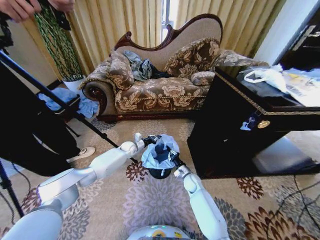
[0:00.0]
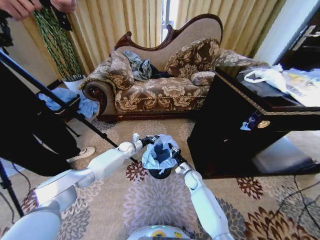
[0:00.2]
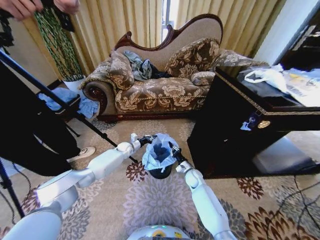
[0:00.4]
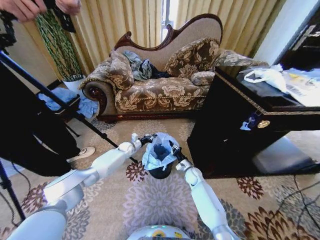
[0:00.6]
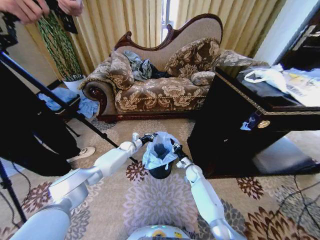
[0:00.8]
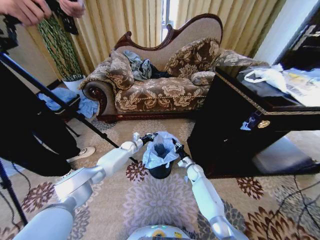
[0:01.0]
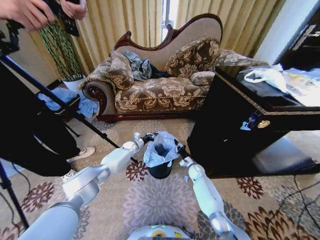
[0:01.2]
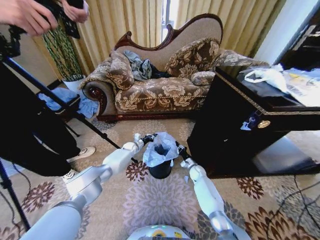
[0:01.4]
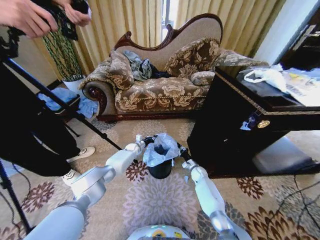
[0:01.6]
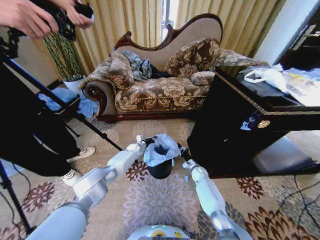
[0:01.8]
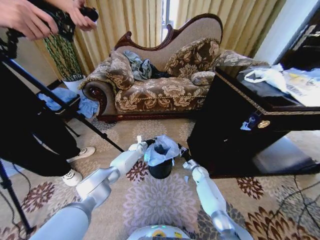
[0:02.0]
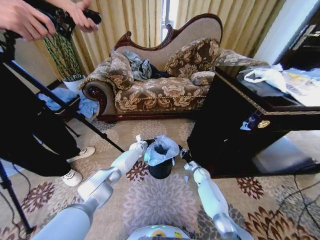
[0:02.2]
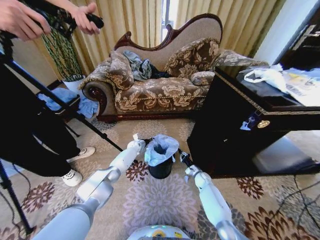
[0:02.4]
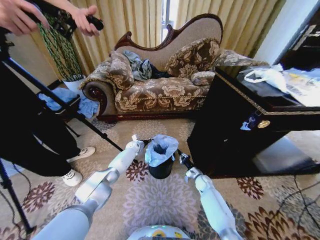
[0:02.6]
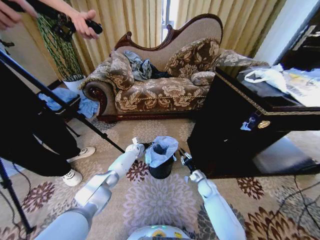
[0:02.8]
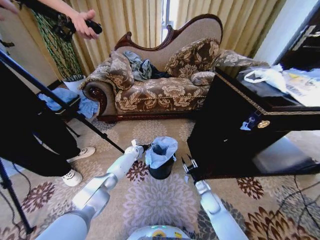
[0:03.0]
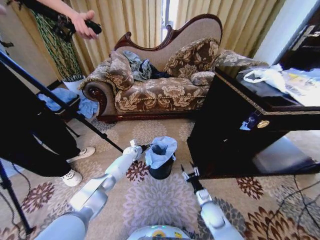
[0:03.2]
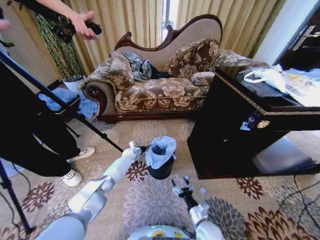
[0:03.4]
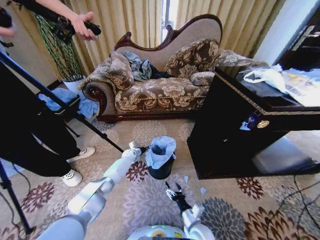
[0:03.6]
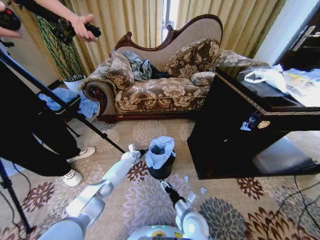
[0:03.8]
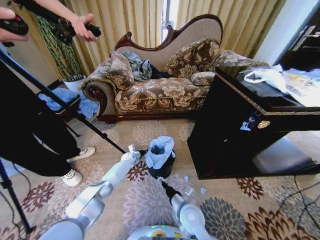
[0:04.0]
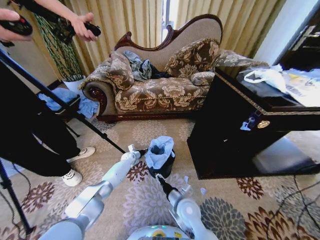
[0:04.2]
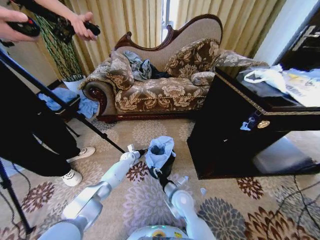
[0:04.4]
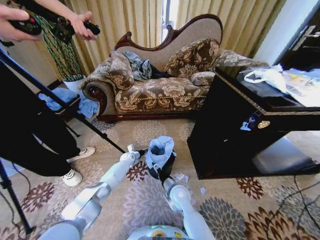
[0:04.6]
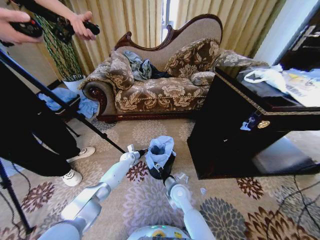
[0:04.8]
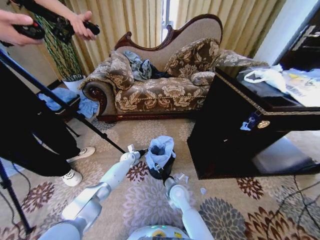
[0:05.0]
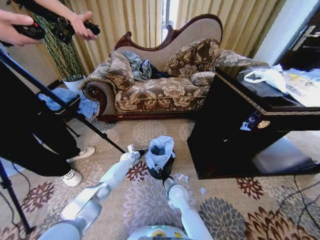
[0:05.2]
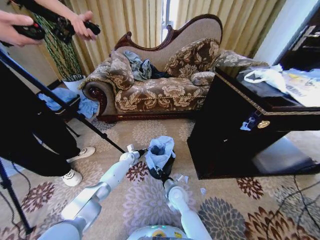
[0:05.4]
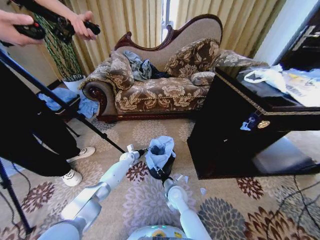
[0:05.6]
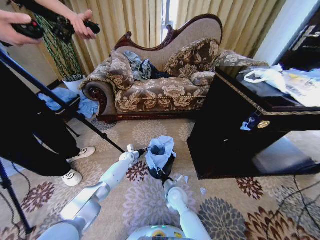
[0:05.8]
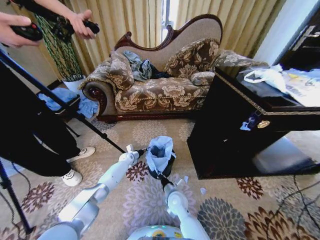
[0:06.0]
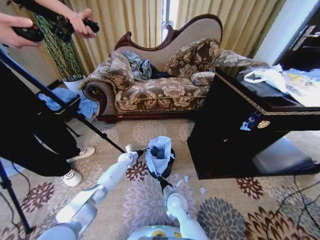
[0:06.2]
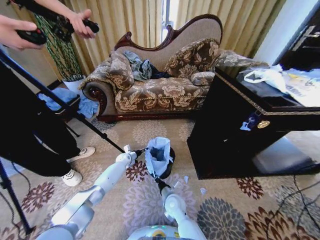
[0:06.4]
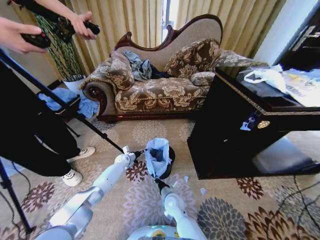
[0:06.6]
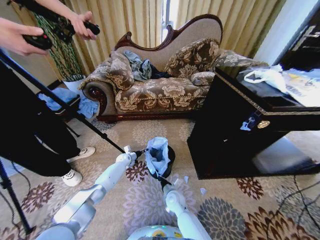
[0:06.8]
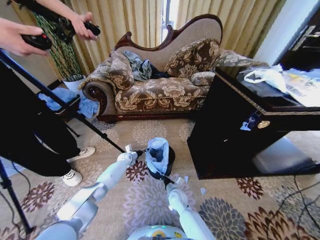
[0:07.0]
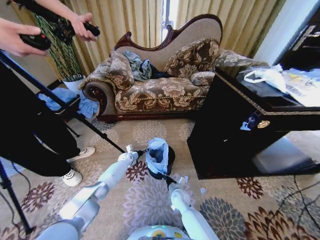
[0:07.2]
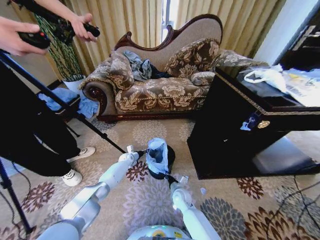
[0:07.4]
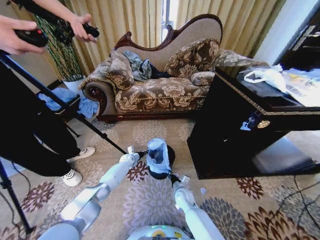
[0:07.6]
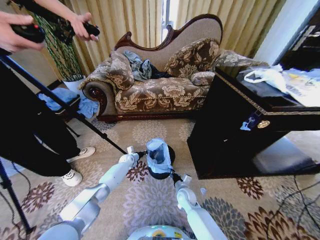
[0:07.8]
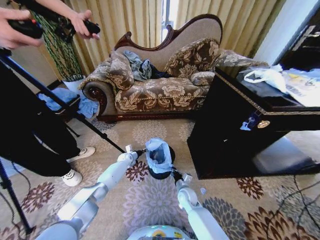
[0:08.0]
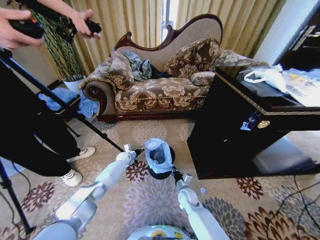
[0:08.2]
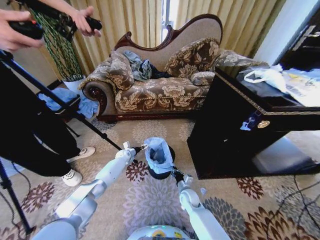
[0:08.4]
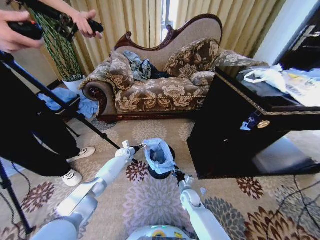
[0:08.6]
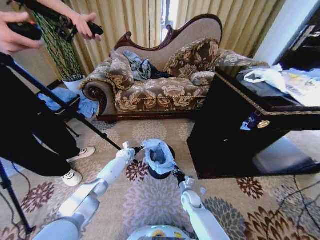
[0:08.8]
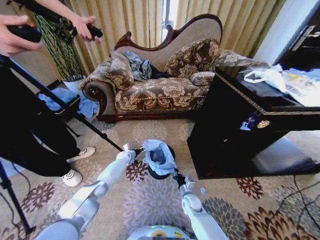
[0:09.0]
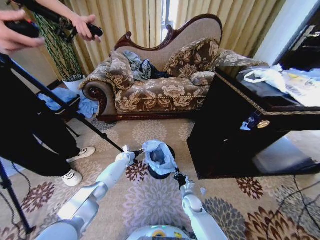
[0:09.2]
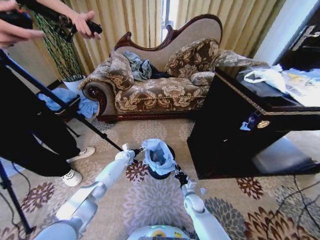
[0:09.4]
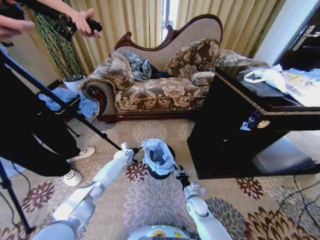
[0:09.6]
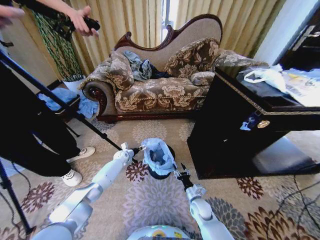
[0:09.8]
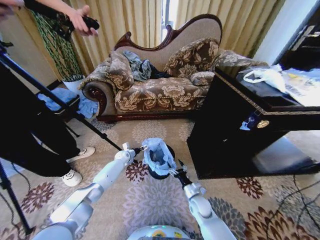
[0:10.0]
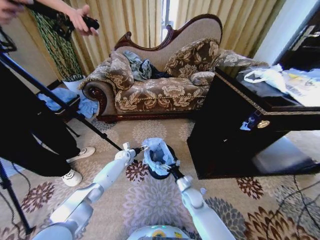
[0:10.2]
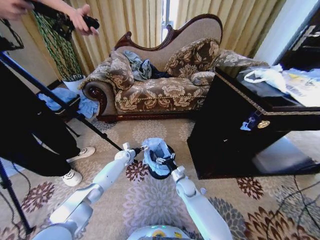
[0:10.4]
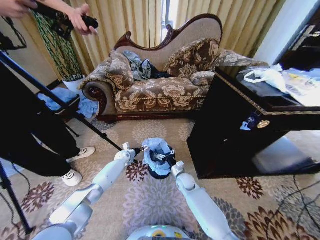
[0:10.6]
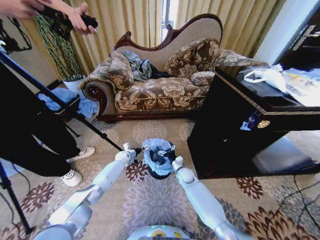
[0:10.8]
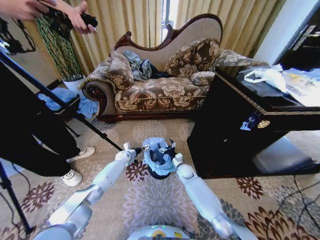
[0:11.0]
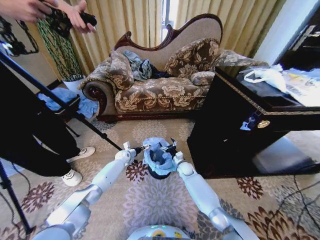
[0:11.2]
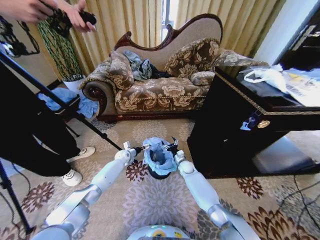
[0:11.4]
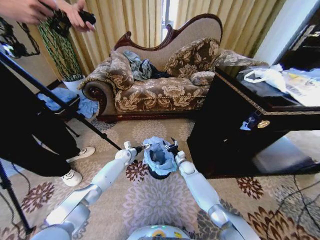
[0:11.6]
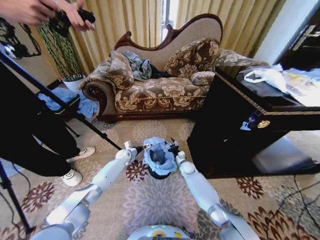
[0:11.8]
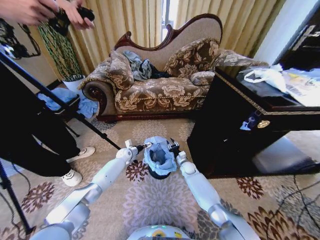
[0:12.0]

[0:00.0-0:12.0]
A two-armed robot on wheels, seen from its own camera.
Task of the whole recording: Place a garbage bag over the trash bin.
0:00.0 to 0:01.6: The left gripper goes roughly 5 cm downward; the right gripper travels forward and to the right by approximately 10 cm.
0:01.6 to 0:03.0: The right gripper goes roughly 15 cm backward, and opens its fingers.
0:03.0 to 0:04.4: The right gripper moves to the left and upward, about 20 cm.
0:04.4 to 0:06.0: The right gripper travels downward by about 5 cm, and closes.
0:06.0 to 0:07.6: The right gripper is displaced downward by some 5 cm.
0:07.6 to 0:09.0: The left gripper opens up. The right gripper changes place by about 5 cm.
0:09.0 to 0:10.4: The right gripper travels upward and forward by some 10 cm, and opens up.
0:10.4 to 0:12.0: The right gripper shifts roughly 15 cm forward, and closes its fingers.

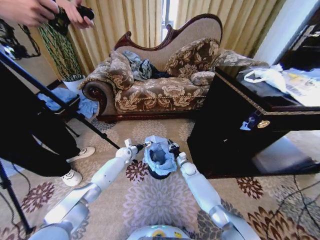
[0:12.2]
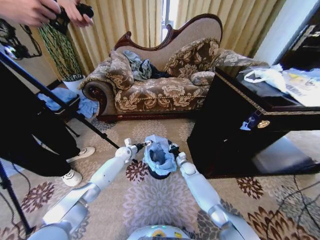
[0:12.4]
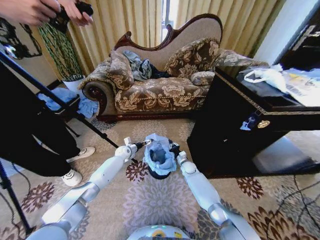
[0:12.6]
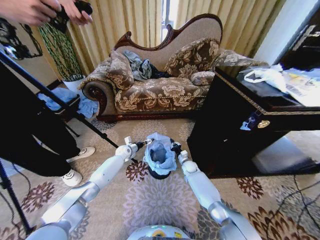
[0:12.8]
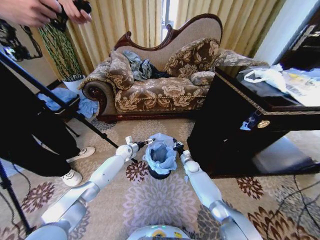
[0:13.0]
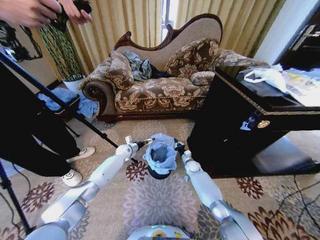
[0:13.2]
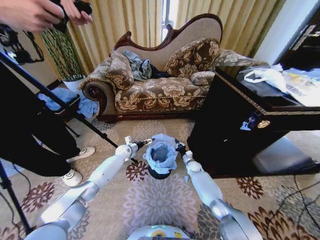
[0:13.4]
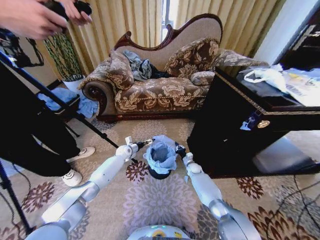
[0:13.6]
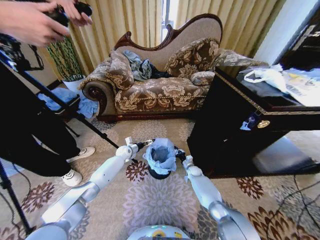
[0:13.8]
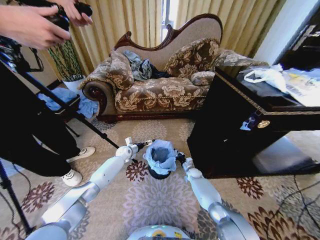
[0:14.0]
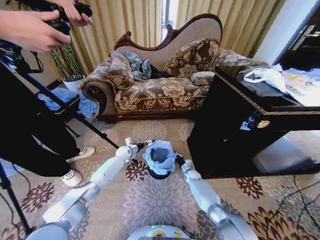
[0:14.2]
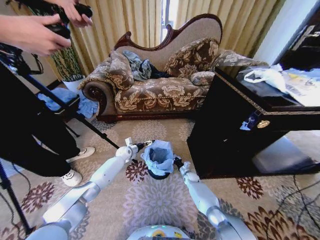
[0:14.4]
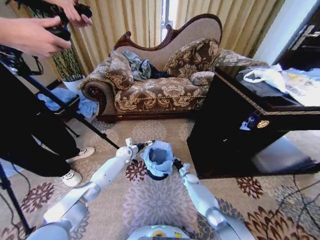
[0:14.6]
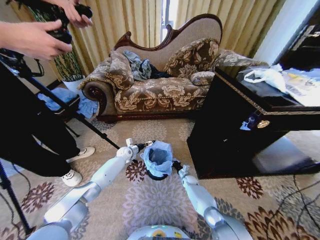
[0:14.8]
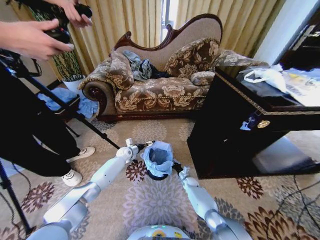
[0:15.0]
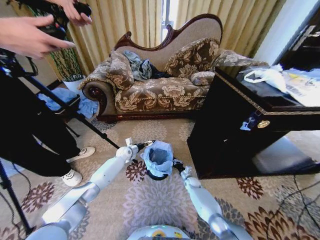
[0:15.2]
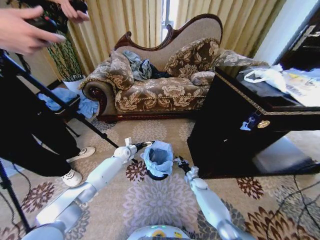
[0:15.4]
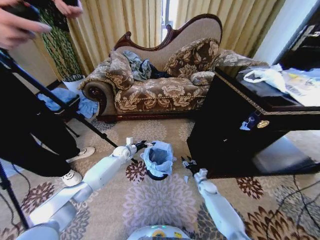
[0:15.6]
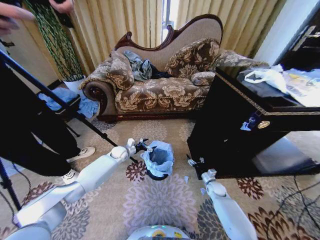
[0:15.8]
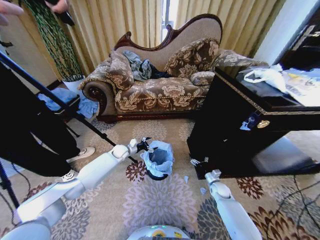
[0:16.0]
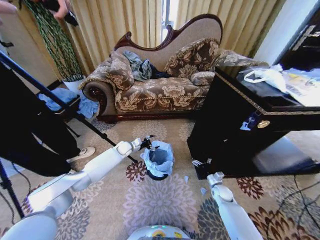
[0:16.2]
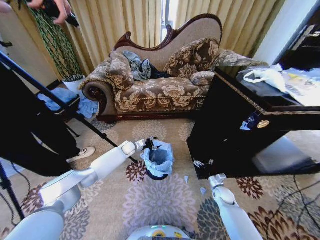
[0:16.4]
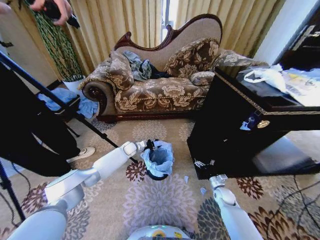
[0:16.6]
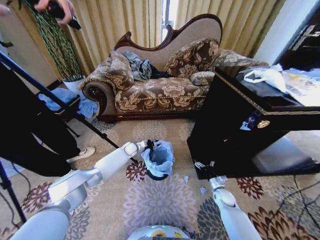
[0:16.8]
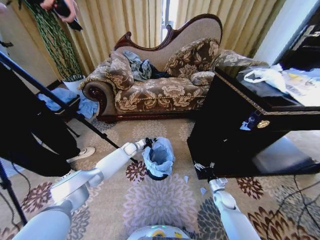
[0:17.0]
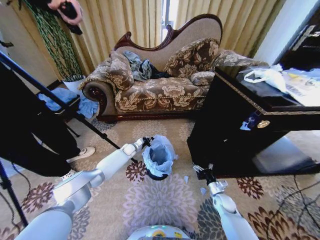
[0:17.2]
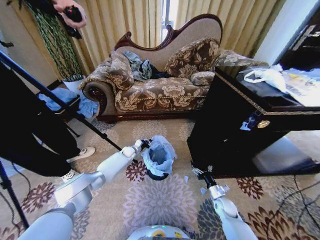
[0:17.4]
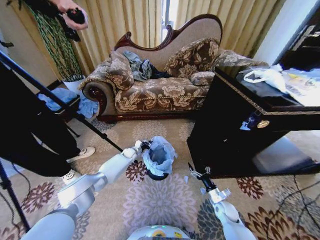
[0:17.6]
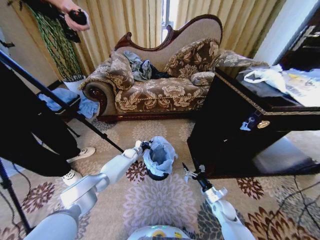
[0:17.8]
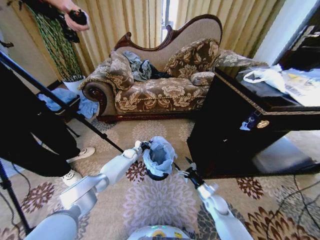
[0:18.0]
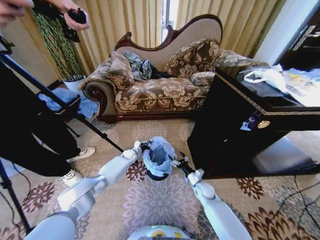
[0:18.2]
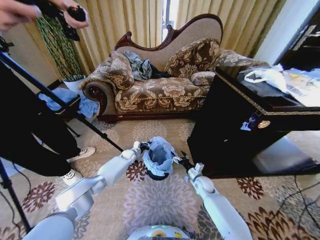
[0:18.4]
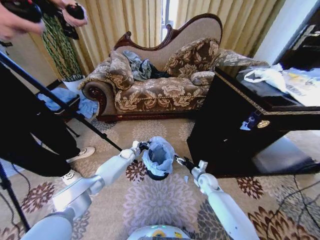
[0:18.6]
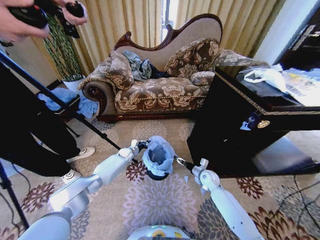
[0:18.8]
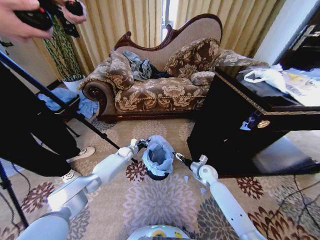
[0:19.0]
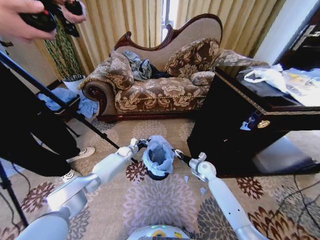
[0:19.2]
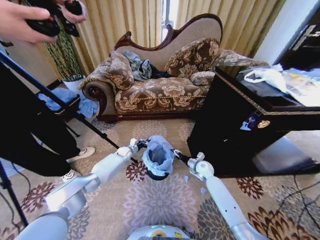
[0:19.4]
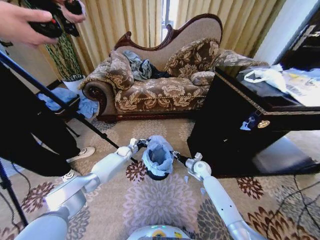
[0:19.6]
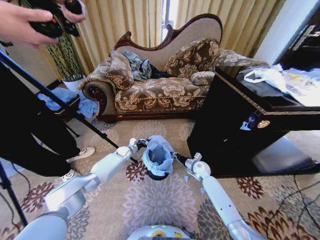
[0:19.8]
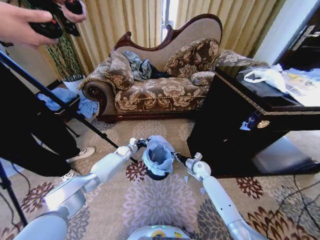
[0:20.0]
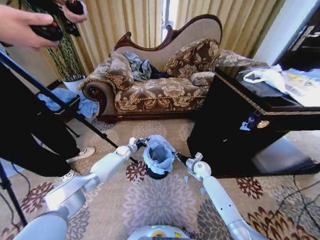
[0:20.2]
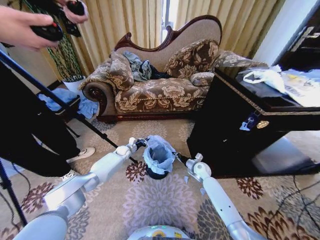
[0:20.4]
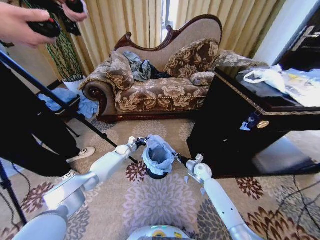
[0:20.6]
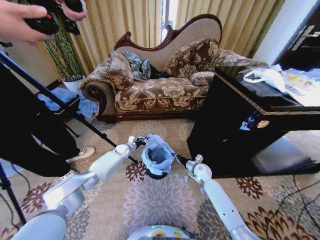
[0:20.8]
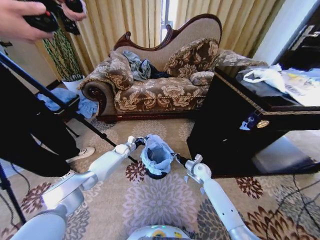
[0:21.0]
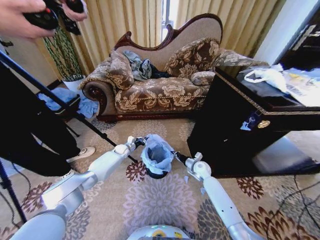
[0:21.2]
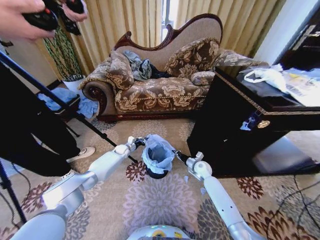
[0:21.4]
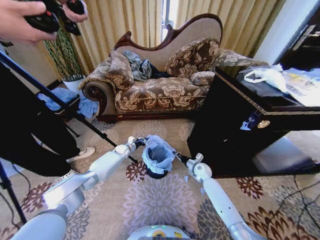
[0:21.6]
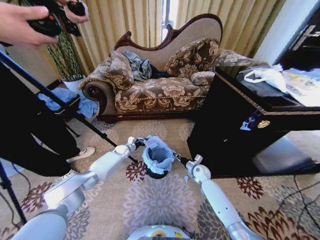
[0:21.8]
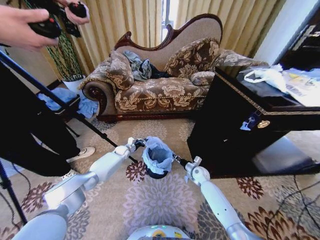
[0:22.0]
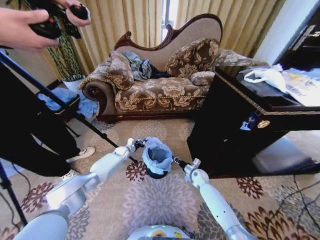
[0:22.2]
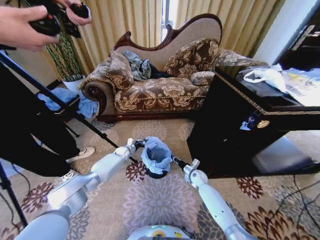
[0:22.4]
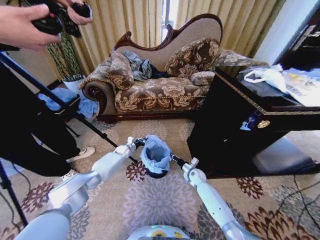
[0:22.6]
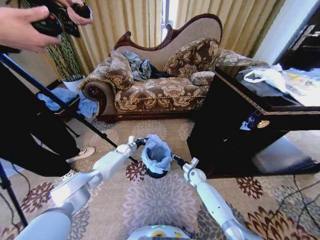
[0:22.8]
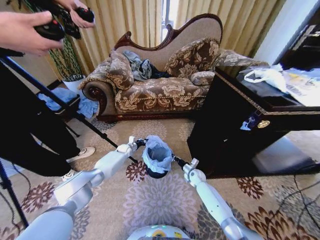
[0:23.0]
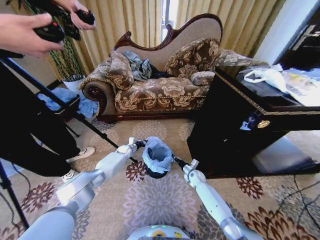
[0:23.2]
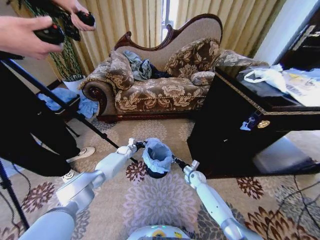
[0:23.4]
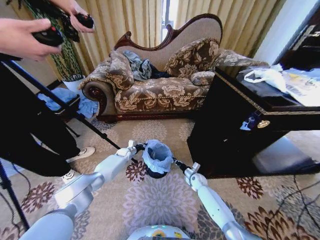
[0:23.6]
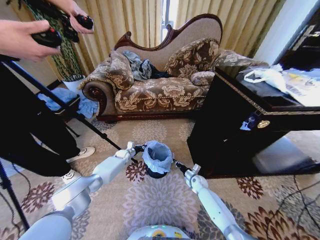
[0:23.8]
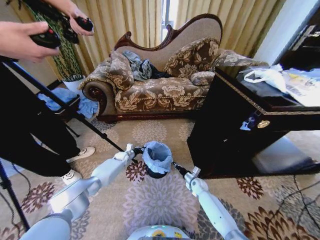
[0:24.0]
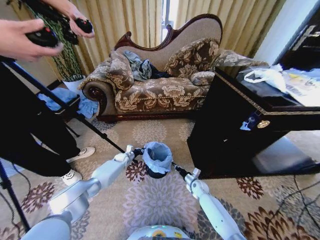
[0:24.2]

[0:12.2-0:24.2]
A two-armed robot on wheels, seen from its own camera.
Task of the whole recording: Place a garbage bag over the trash bin.
0:12.2 to 0:13.8: The right gripper is displaced to the right by approximately 5 cm.
0:13.8 to 0:15.2: The right gripper shifts roughly 5 cm backward.
0:15.2 to 0:16.6: The right gripper moves to the right, backward and upward, some 15 cm, and opens, while the left gripper closes.
0:16.6 to 0:18.2: The right gripper is displaced to the left by about 10 cm. The left gripper shifts about 5 cm downward, and closes its fingers.
0:18.2 to 0:19.8: The right gripper moves forward and upward, approximately 10 cm, and closes.
0:19.8 to 0:21.2: The grippers make only small movements.
0:21.2 to 0:22.6: The right gripper moves downward, approximately 5 cm.
0:22.6 to 0:24.2: The left gripper goes some 5 cm downward; the right gripper heads backward, covering approximately 5 cm.
